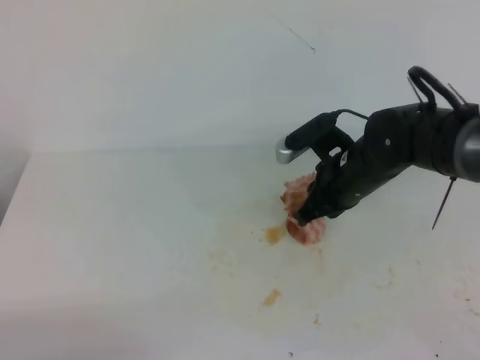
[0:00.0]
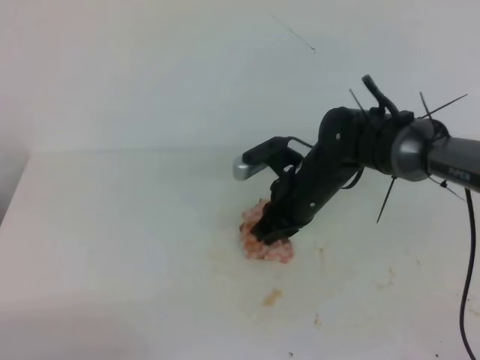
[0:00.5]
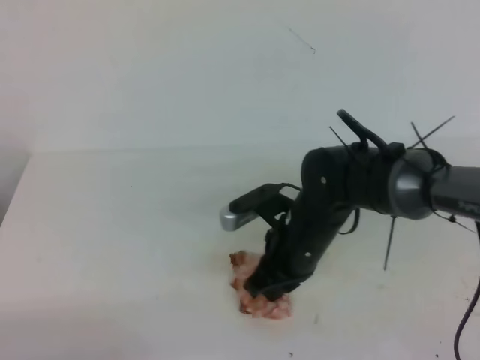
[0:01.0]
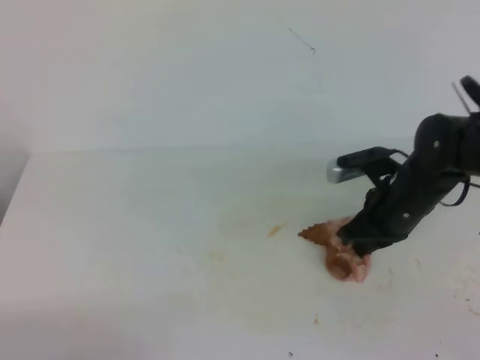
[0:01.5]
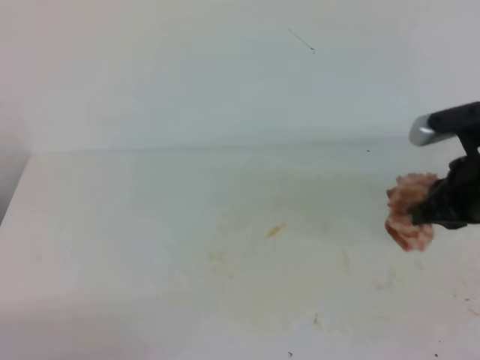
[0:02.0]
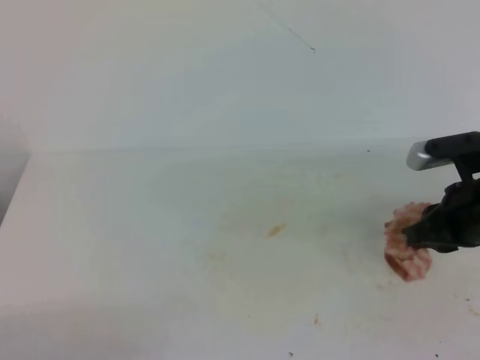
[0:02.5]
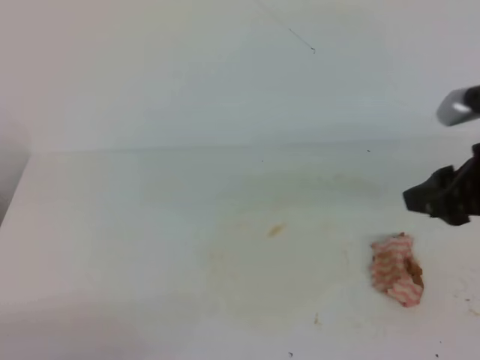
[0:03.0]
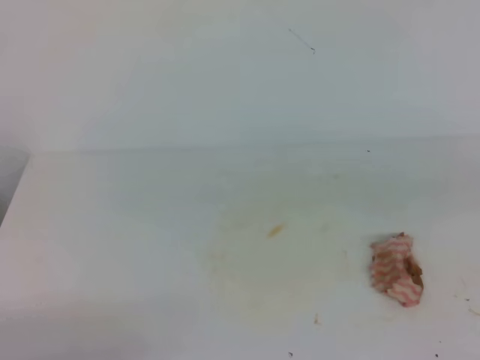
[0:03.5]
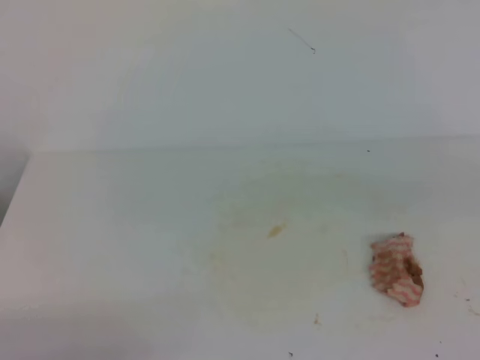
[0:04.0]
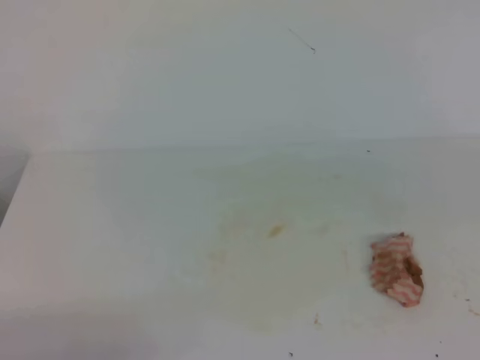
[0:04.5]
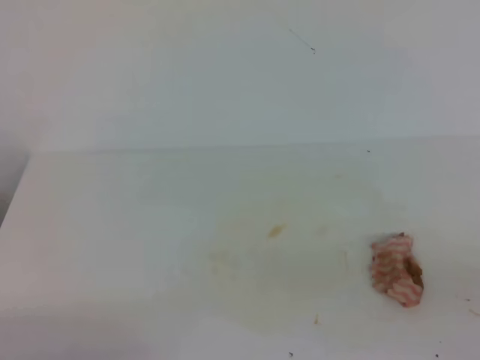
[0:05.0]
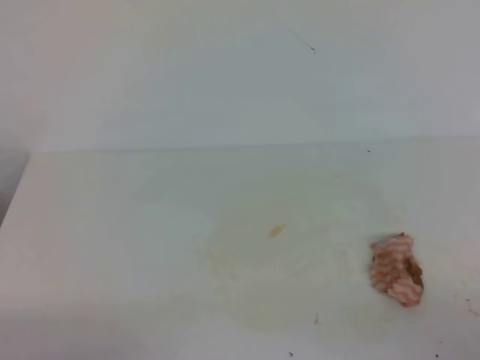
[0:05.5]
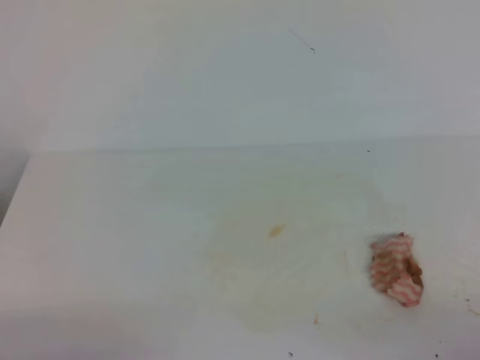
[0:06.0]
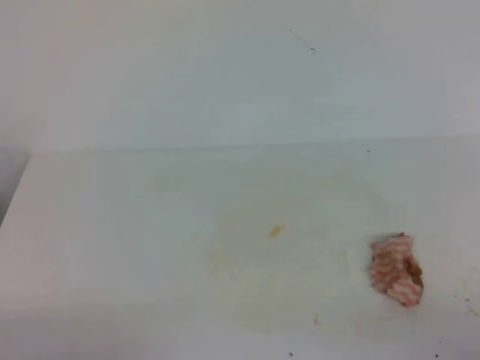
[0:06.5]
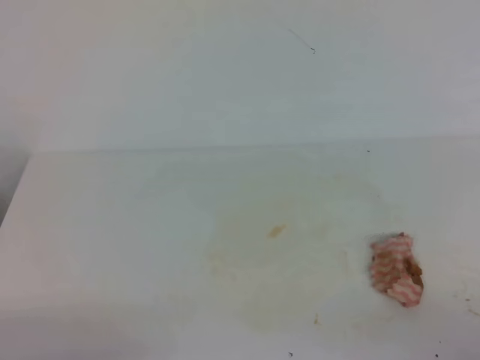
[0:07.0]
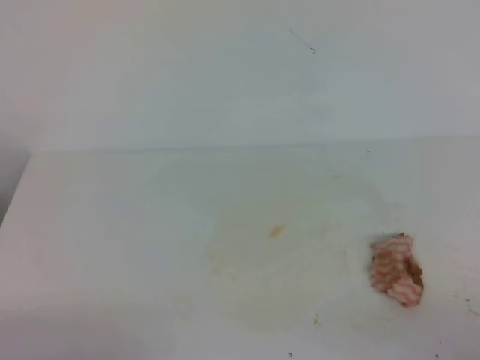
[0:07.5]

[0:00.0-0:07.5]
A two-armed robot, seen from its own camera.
0:00.0 to 0:02.0: The right gripper is displaced to the right, backward and upward by approximately 15 cm.
0:02.0 to 0:04.0: The right gripper shifts some 20 cm backward and upward, and opens, then closes once more.
0:05.5 to 0:07.5: Both grippers stay put.

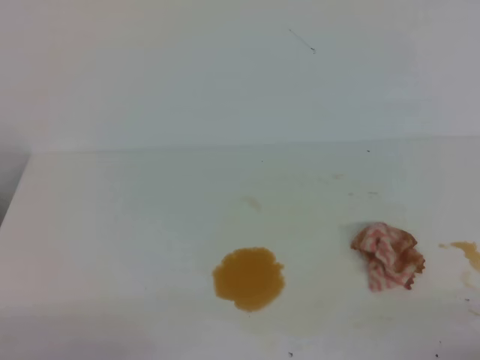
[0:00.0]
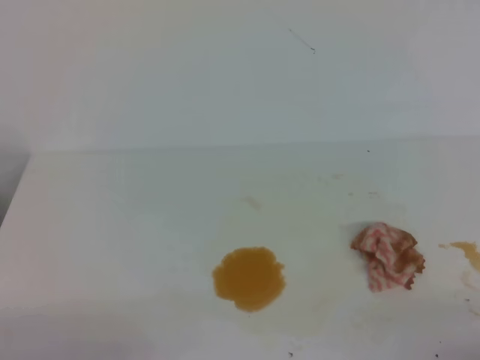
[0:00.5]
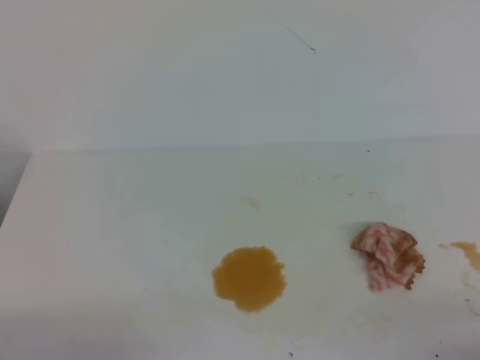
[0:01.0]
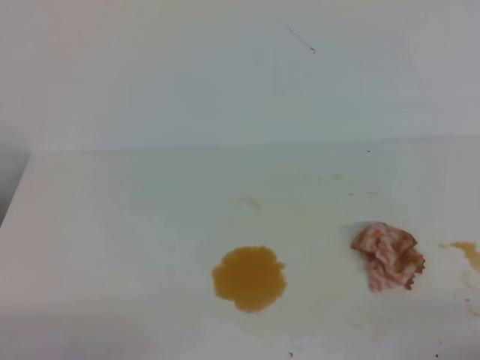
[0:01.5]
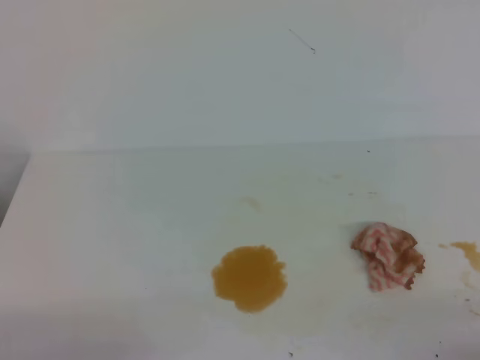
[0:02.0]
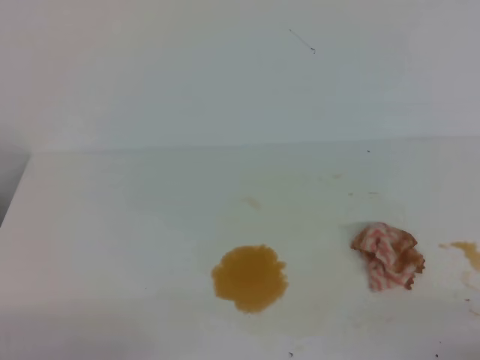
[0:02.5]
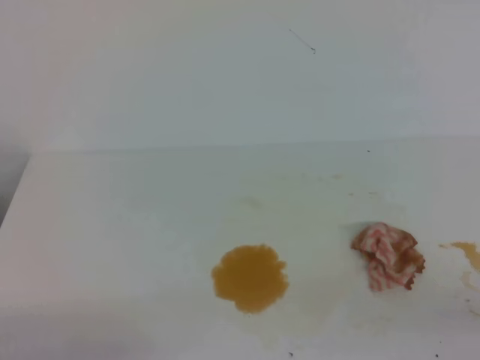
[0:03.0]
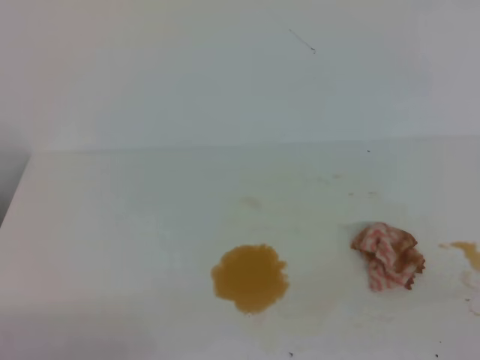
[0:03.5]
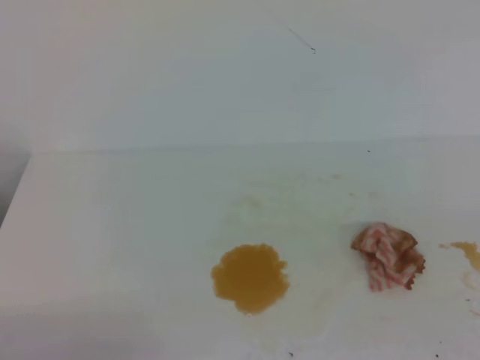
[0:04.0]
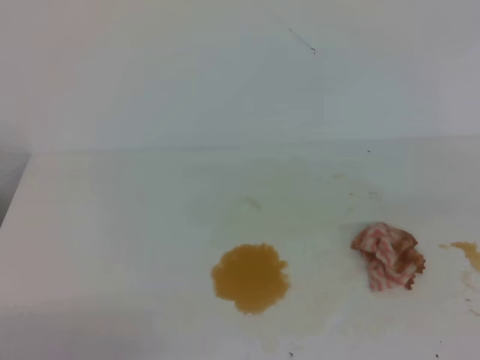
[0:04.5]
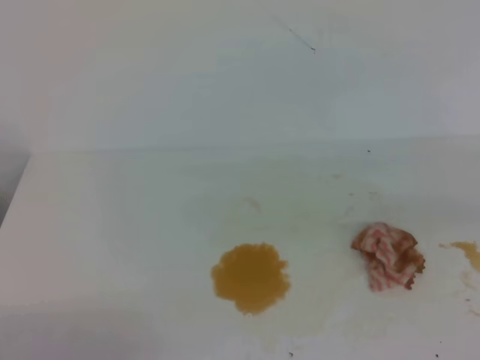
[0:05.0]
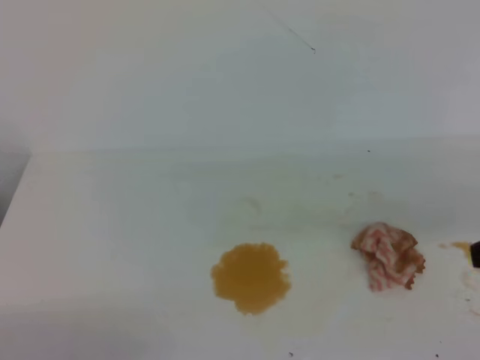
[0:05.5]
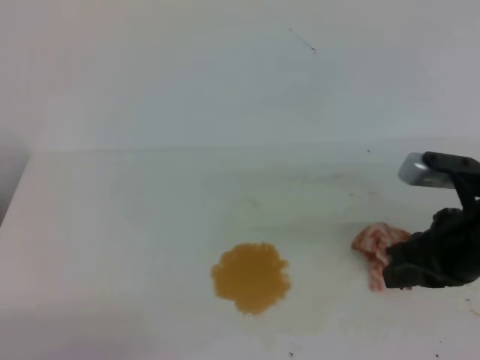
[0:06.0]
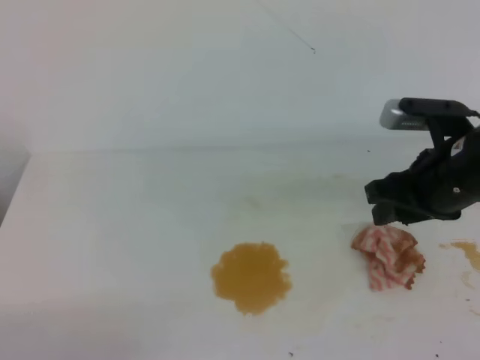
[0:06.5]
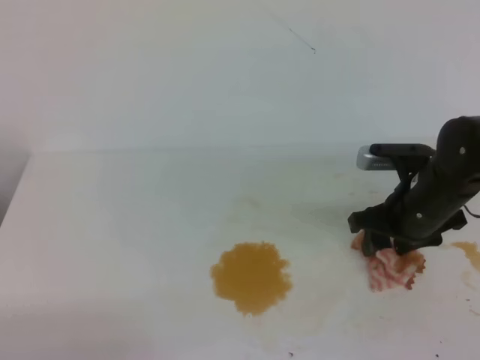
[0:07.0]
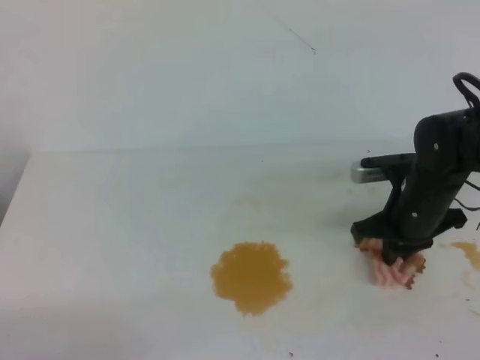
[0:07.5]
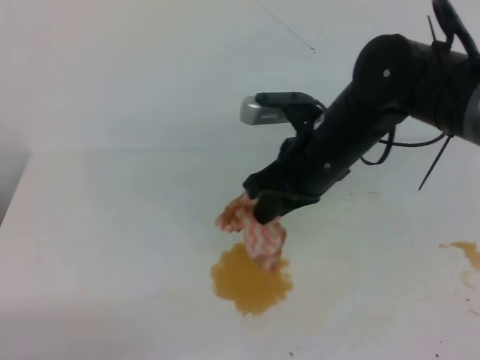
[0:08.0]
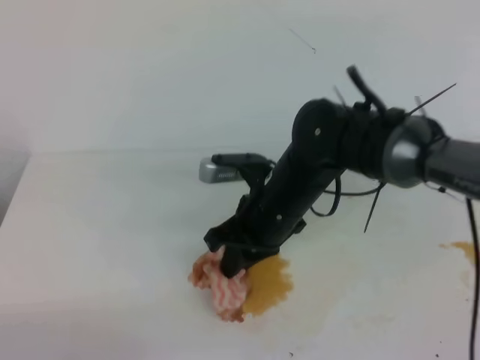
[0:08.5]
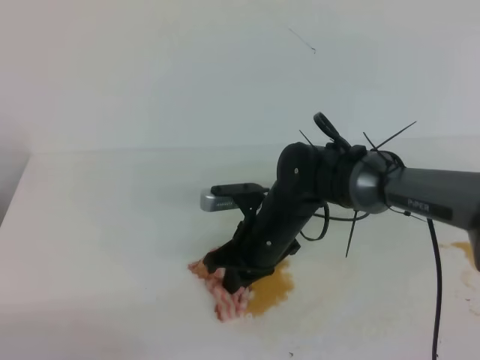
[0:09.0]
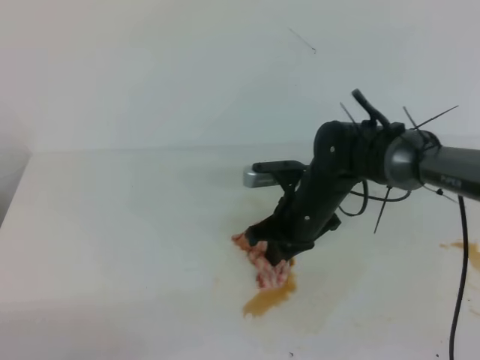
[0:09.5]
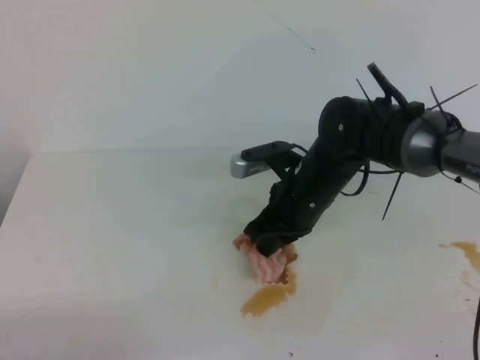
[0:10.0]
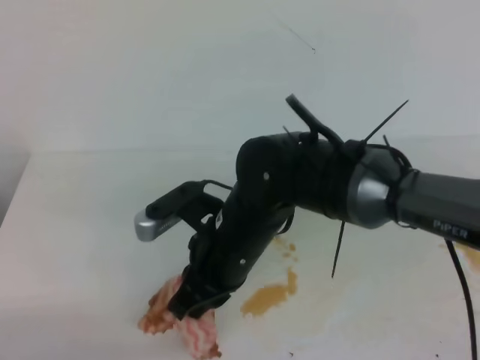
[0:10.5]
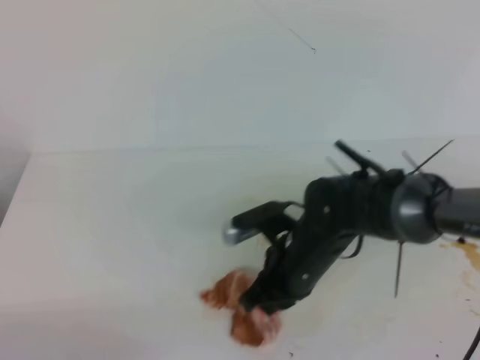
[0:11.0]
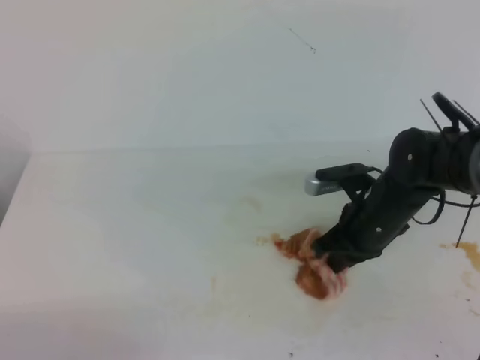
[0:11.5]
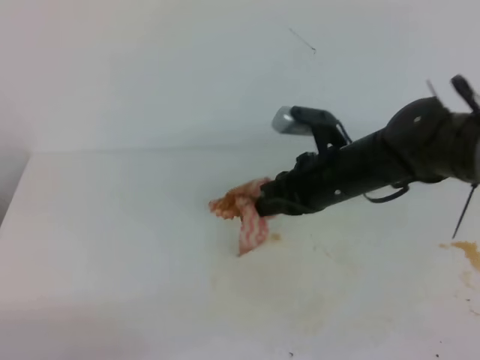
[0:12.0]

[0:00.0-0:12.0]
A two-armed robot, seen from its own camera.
0:00.0 to 0:02.0: The two grippers keep their place.
0:04.0 to 0:06.0: The right gripper is displaced forward, to the left and downward by some 25 cm.
0:06.0 to 0:08.0: The right gripper shifts approximately 15 cm to the left and forward, and opens and closes again.
0:08.0 to 0:10.0: The right gripper shifts some 5 cm downward.
0:10.0 to 0:12.0: The right gripper moves roughly 10 cm to the right and comes back.

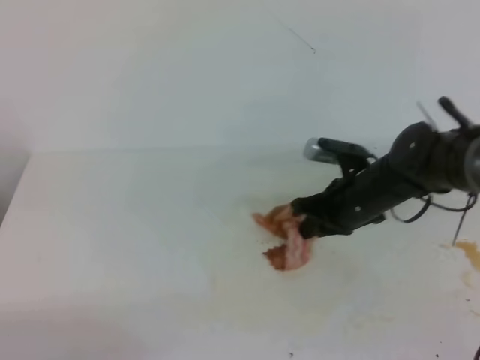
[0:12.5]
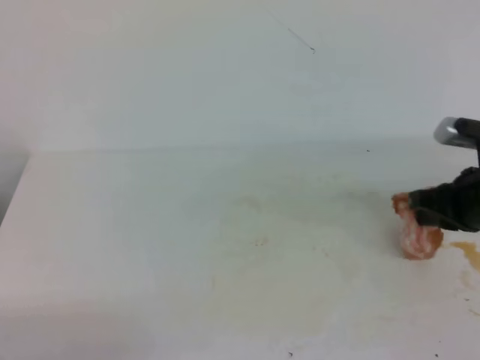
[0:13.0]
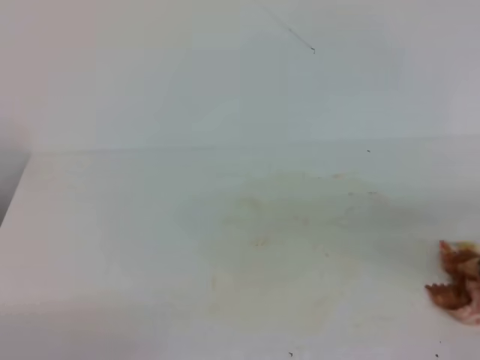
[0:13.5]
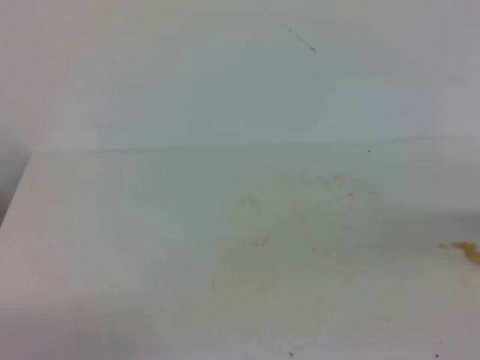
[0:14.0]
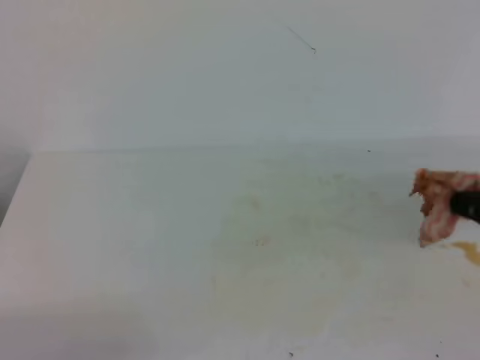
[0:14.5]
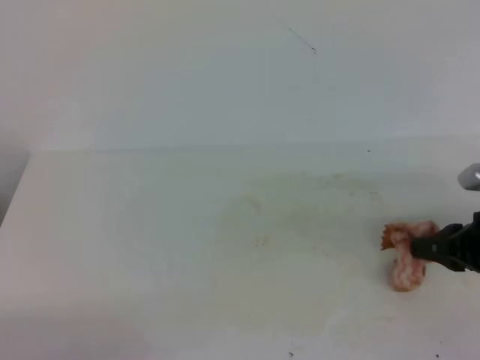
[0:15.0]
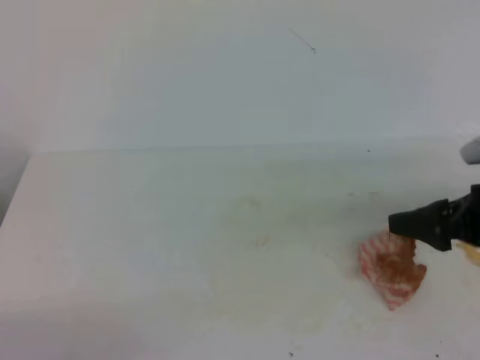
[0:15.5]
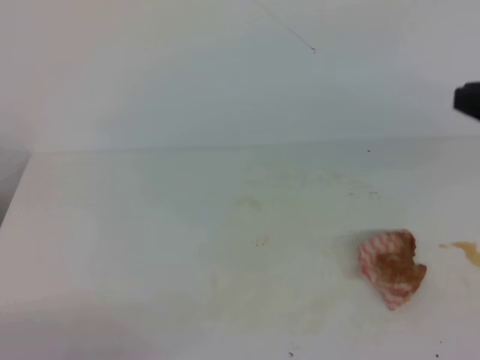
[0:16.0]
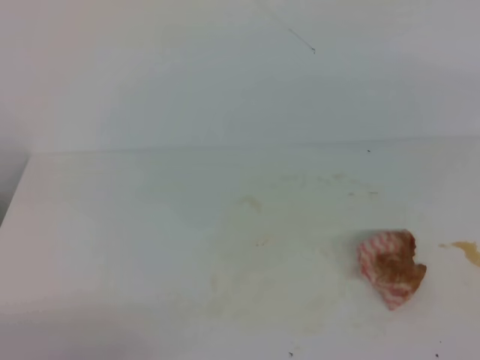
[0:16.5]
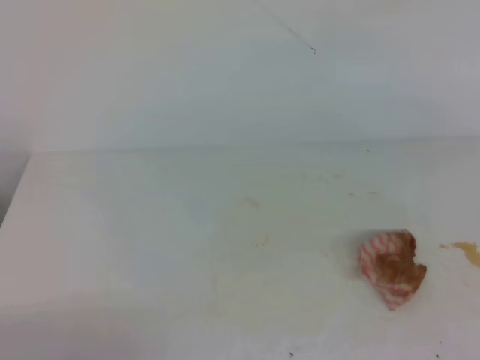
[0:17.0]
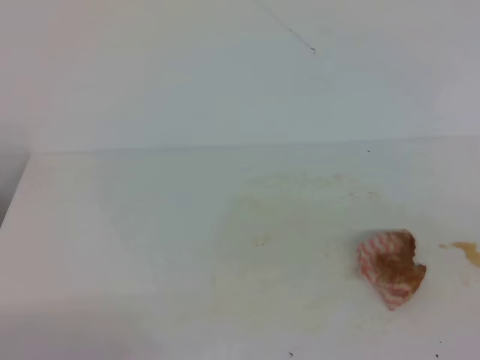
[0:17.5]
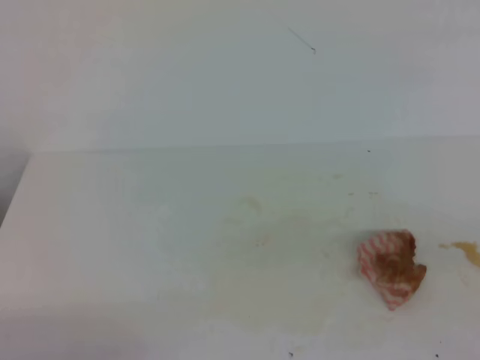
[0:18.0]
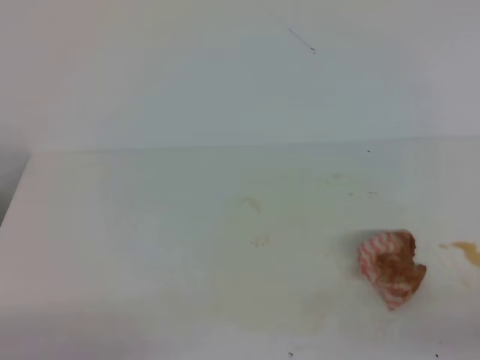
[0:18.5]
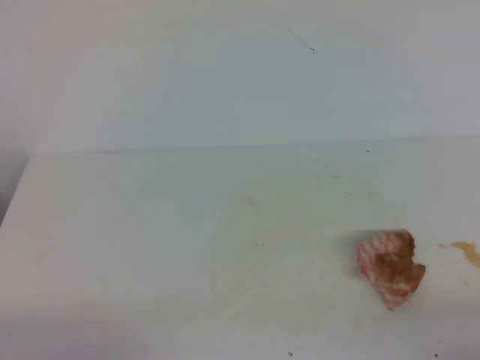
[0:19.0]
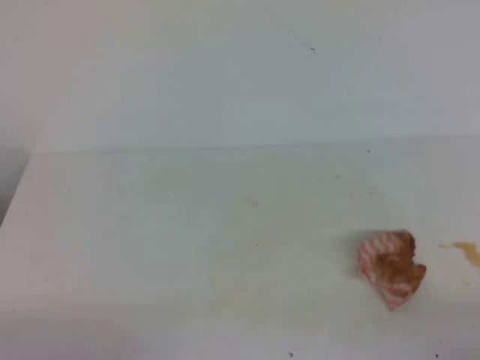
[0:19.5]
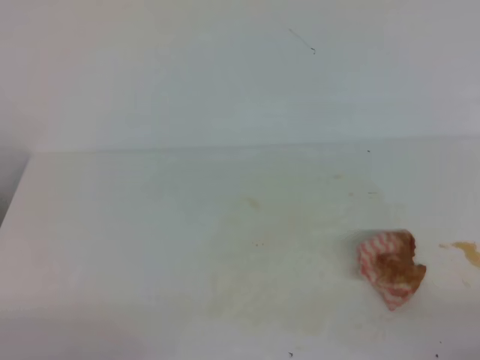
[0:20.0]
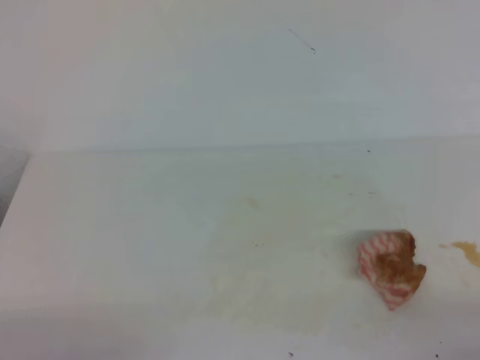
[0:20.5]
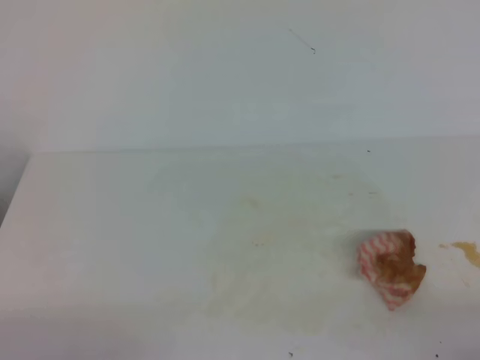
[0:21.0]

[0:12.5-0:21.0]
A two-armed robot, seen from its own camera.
0:12.5 to 0:14.5: The right gripper moves to the right and backward, some 20 cm.
0:14.5 to 0:16.5: The right gripper is displaced upward by roughly 15 cm, and opens, then closes again.
0:19.0 to 0:21.0: Neither gripper changes place.
